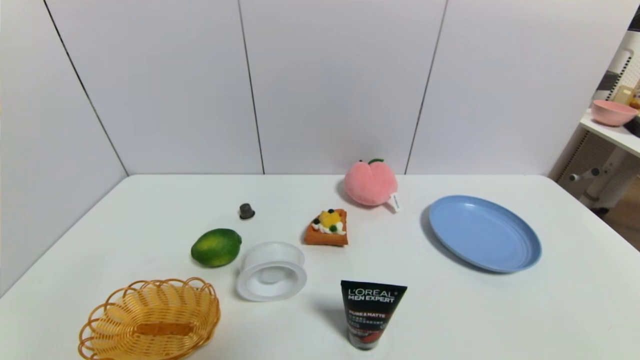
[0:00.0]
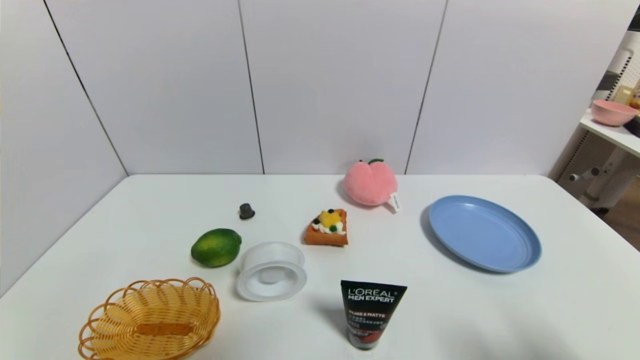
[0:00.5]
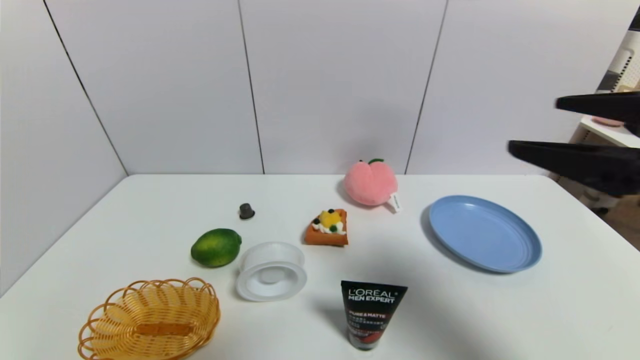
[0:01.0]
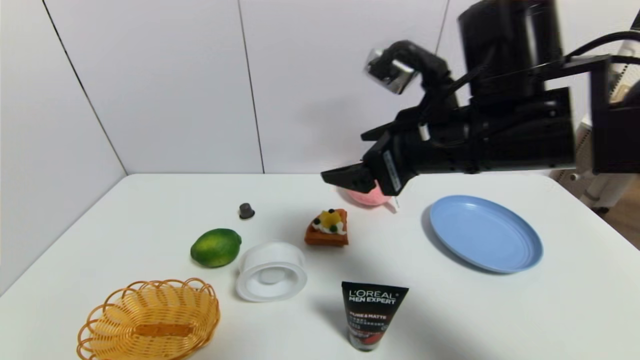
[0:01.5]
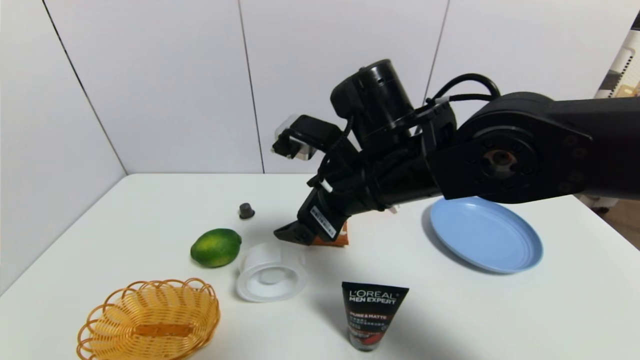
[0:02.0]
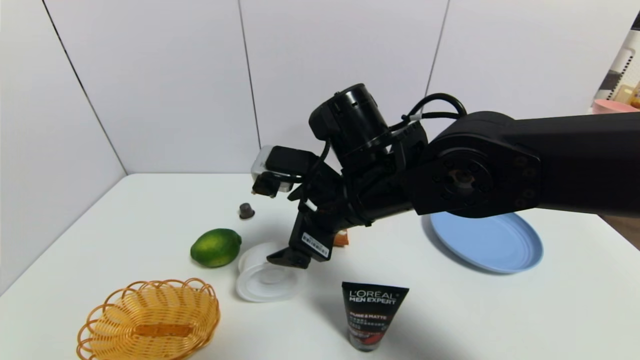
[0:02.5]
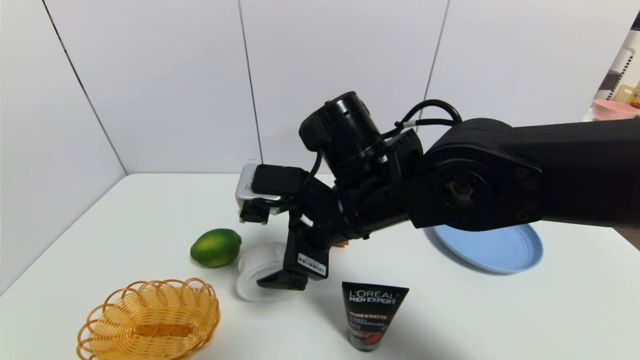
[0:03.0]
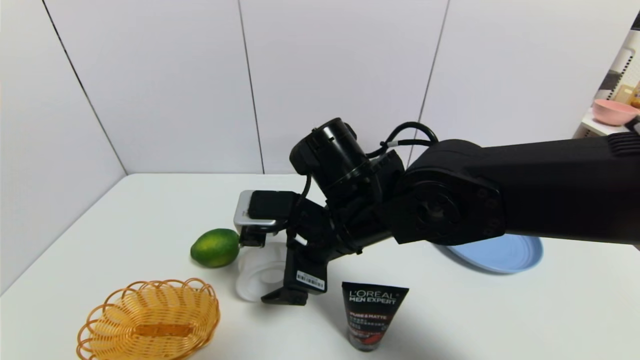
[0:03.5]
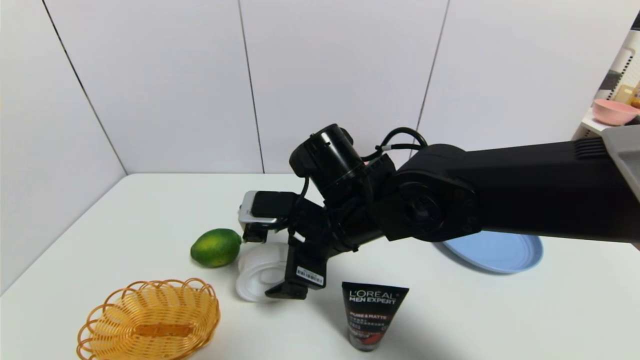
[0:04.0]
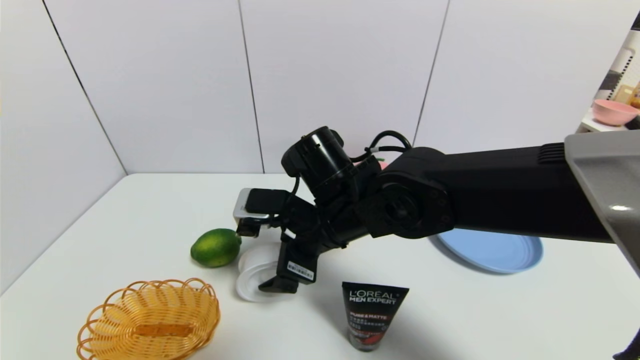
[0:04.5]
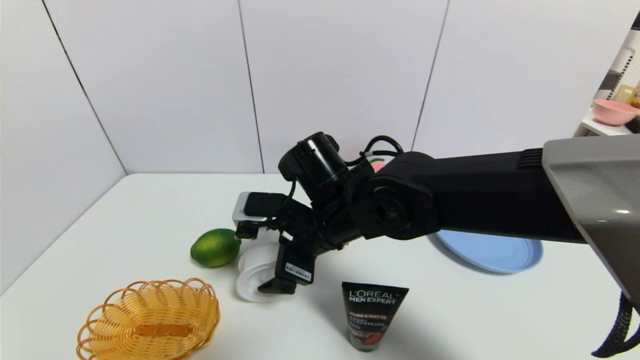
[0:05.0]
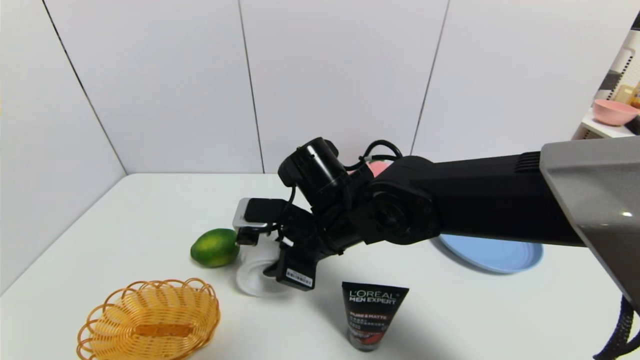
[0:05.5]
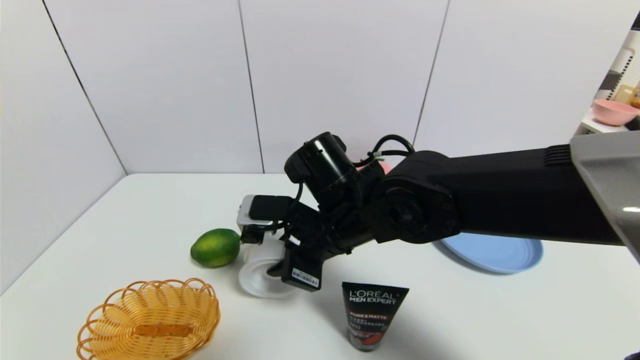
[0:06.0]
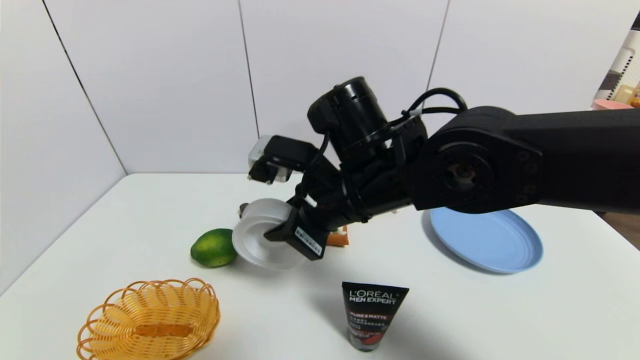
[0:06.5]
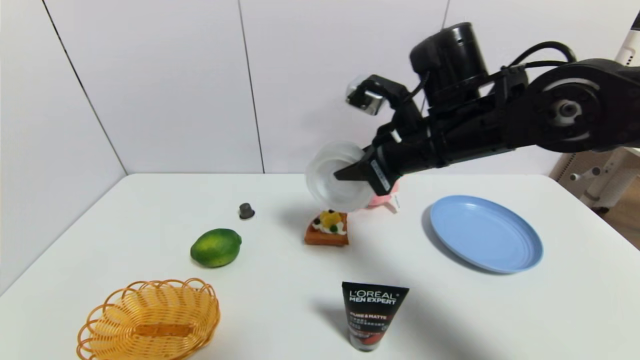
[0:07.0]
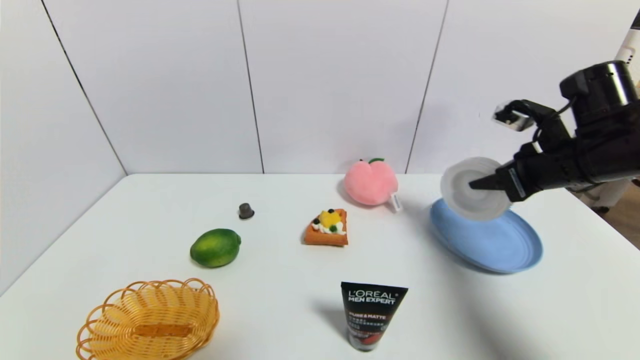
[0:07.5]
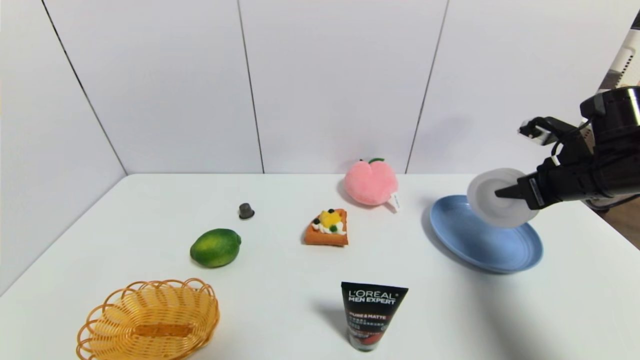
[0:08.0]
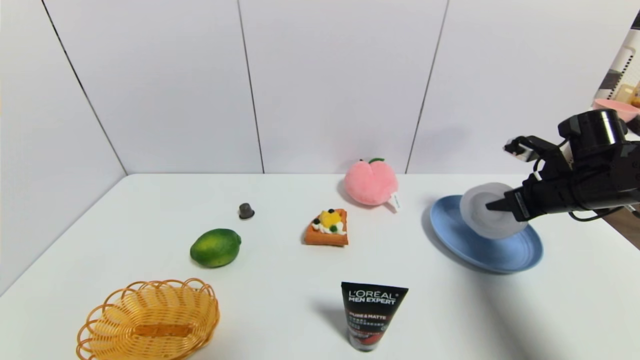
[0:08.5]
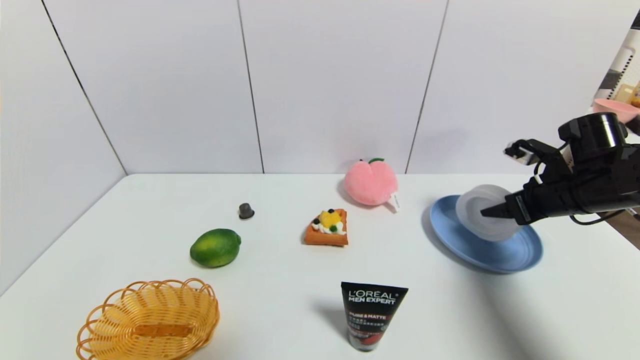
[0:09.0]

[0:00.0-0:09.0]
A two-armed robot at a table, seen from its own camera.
Task of the whole recording: use a gripper to pick the target object and place on the blue plate.
Step, 0:00.0 to 0:05.5: Grasp the tape with the right gripper.
Step, 0:06.0 to 0:09.0: Place the tape on the blue plate with the right gripper.
0:00.0 to 0:02.0: The right gripper moves to the left, forward and upward, approximately 40 cm.
0:02.0 to 0:04.5: The right gripper travels downward by some 5 cm.
0:04.5 to 0:07.0: The right gripper travels to the right and upward by roughly 15 cm, and closes.
0:07.0 to 0:09.0: The right gripper goes roughly 25 cm to the right and downward, and opens.

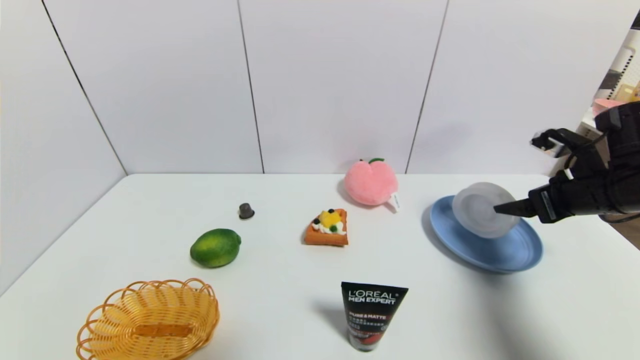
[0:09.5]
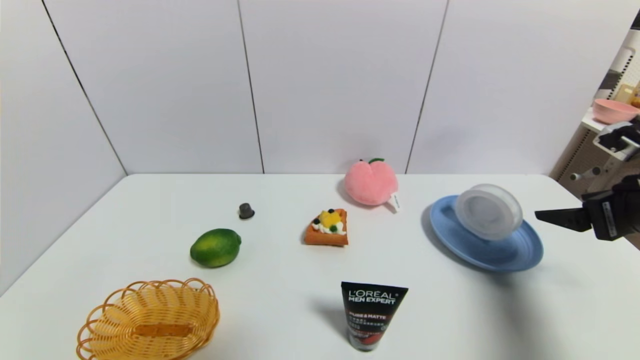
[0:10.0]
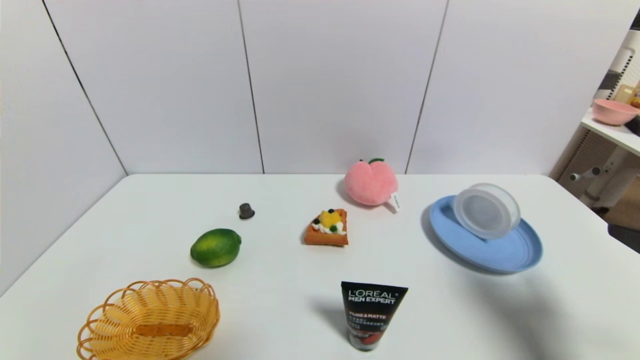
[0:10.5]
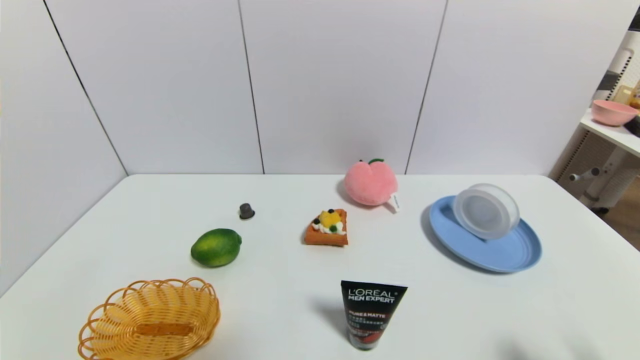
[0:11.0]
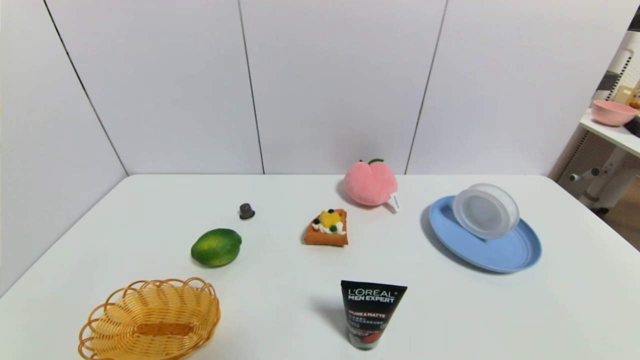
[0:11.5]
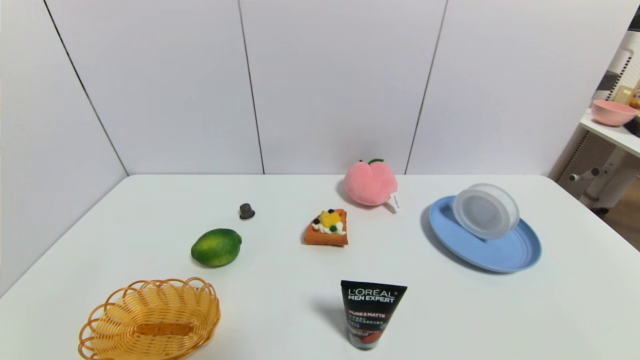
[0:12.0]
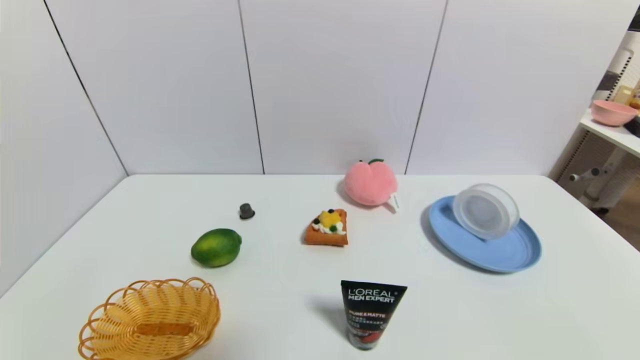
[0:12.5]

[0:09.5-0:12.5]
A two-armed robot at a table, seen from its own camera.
Task of the whole recording: use a gripper to pick the target object and place on the blue plate.
0:09.5 to 0:11.0: The right gripper travels backward by roughly 25 cm.

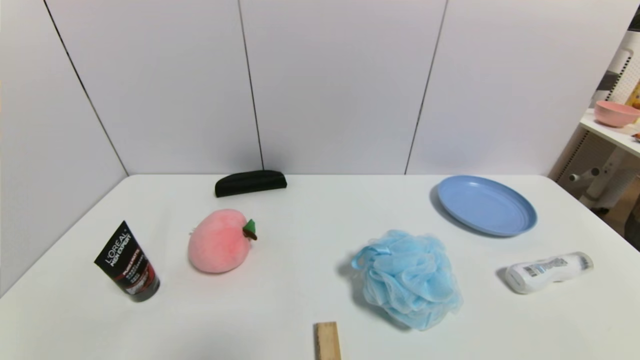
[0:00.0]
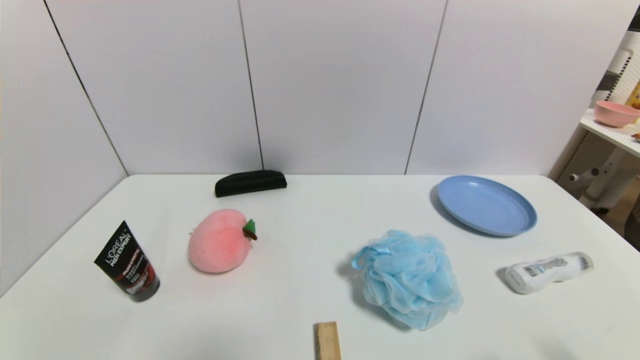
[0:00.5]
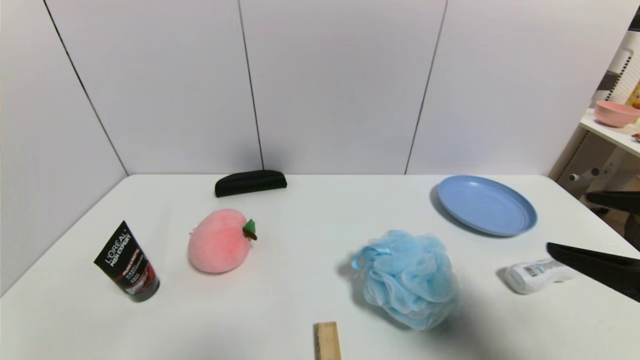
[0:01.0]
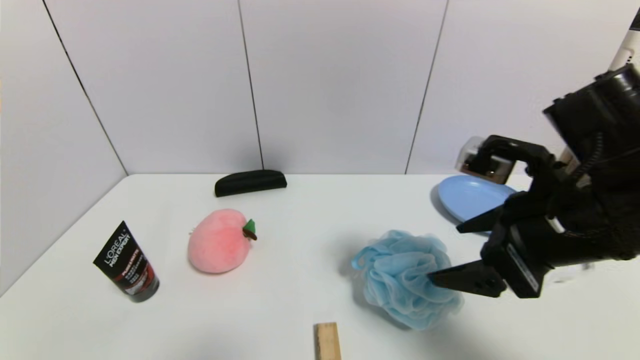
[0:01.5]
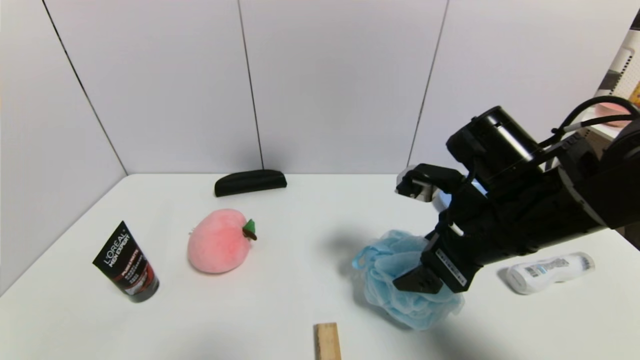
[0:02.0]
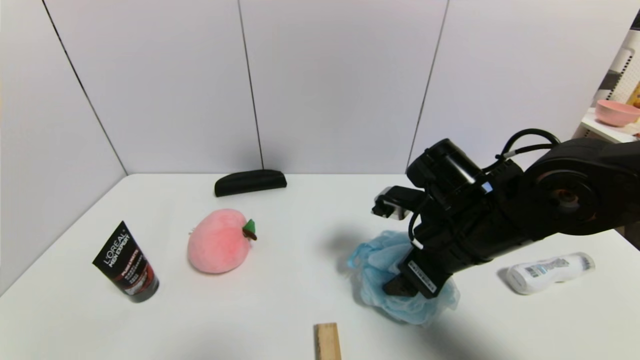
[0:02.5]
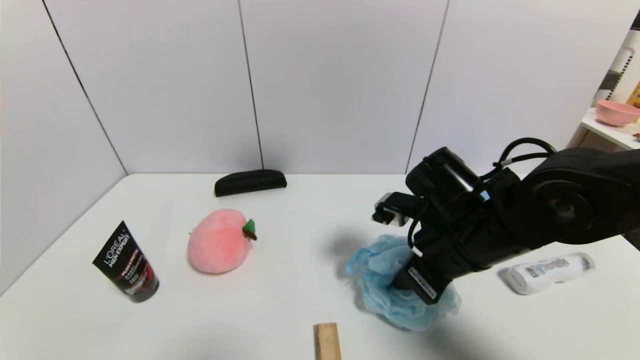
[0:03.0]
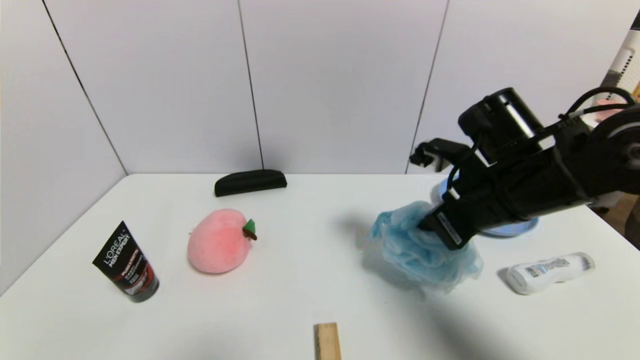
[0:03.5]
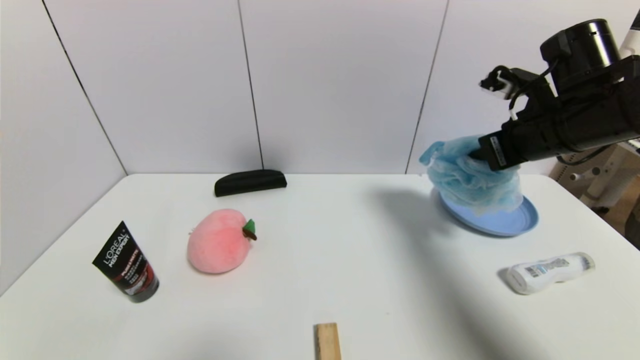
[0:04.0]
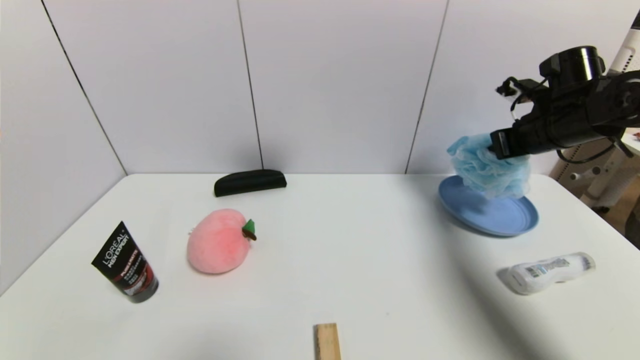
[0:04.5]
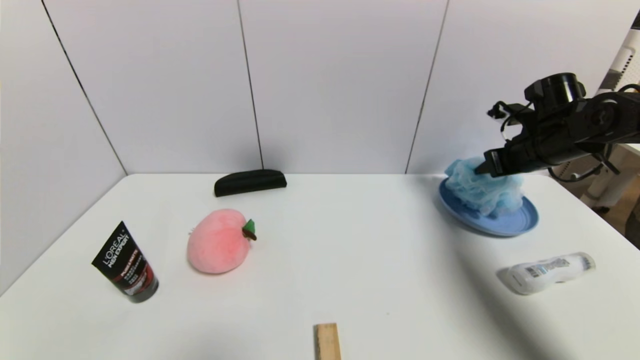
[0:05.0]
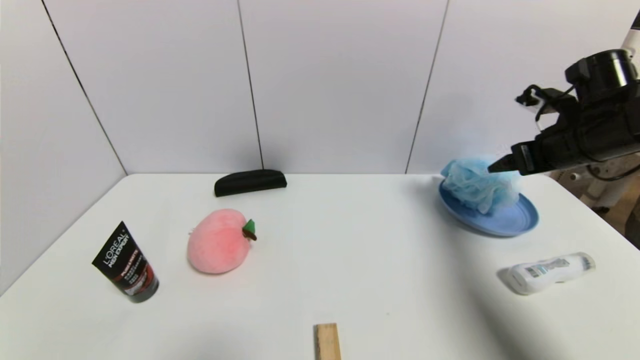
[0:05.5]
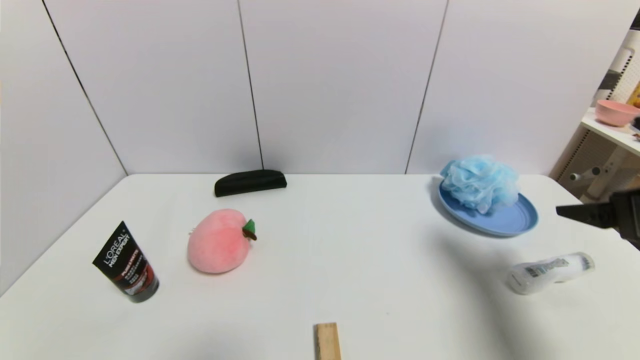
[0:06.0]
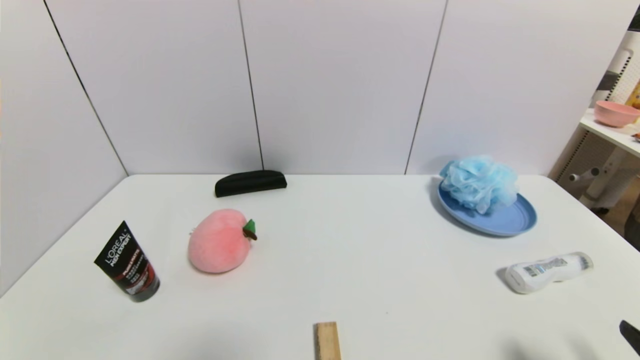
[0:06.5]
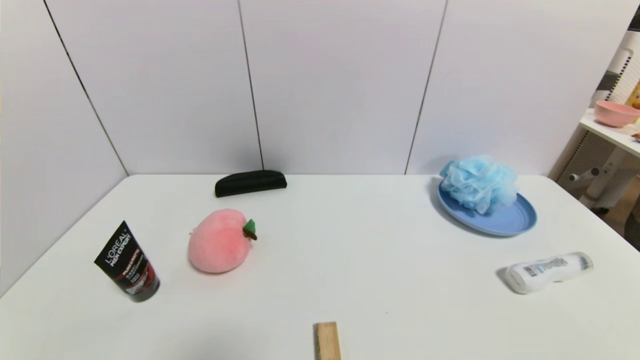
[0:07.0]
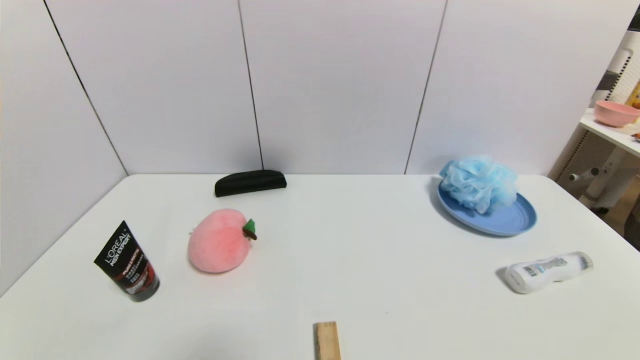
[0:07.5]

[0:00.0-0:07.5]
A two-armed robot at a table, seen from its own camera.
Task of the whole recording: use a gripper to pick the target object and place on the blue plate.
Step, 0:00.0 to 0:03.0: Grasp the shower sphere with the right gripper.
Step, 0:03.5 to 0:06.0: Place the shower sphere on the blue plate with the right gripper.
0:00.0 to 0:02.0: The right gripper is displaced forward, to the left and upward by some 35 cm.
0:02.0 to 0:04.0: The right gripper travels to the right, forward and upward by approximately 15 cm, and closes up.
0:04.0 to 0:05.5: The right gripper goes some 5 cm to the right, moves approximately 10 cm forward and comes back, and opens.
0:05.5 to 0:07.5: The right gripper goes some 40 cm backward and downward.
